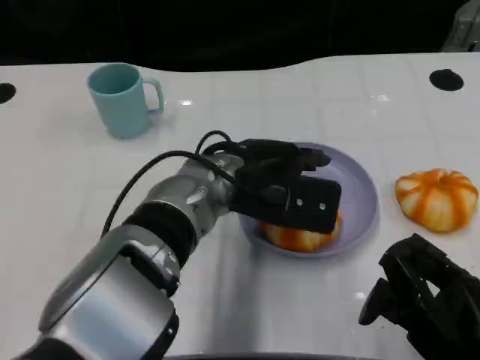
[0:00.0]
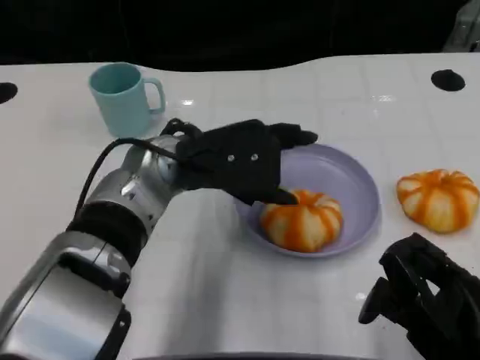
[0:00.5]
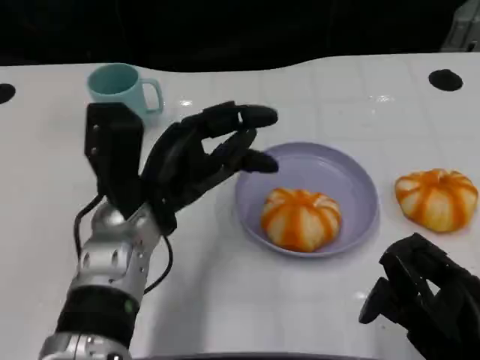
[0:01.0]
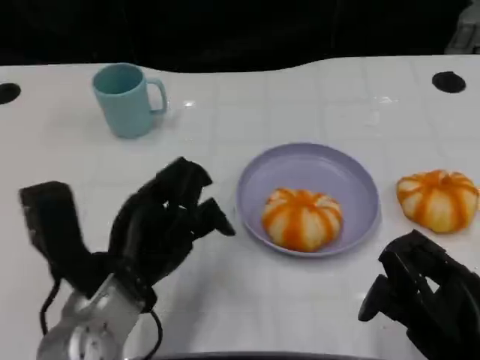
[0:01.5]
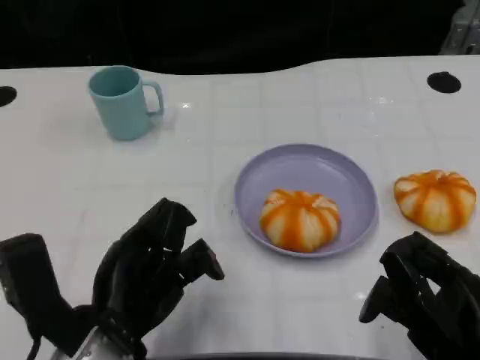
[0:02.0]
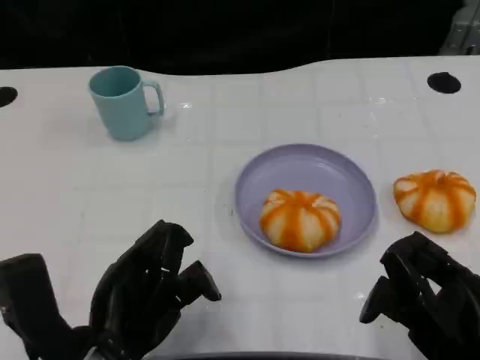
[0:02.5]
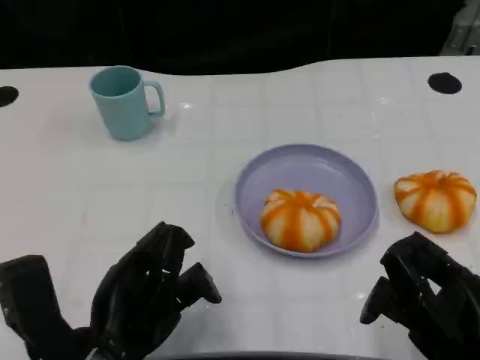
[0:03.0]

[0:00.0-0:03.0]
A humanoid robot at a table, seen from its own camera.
Task of the whole recording: Grasp the bread from the table and place it into the plate.
0:00.0 to 0:01.5: The left hand shifts about 15 cm to the left and backward.
0:01.5 to 0:03.0: The left hand moves backward, approximately 5 cm.

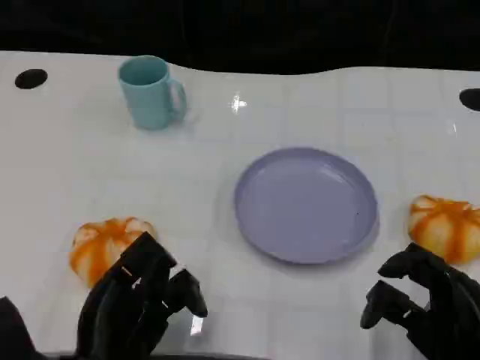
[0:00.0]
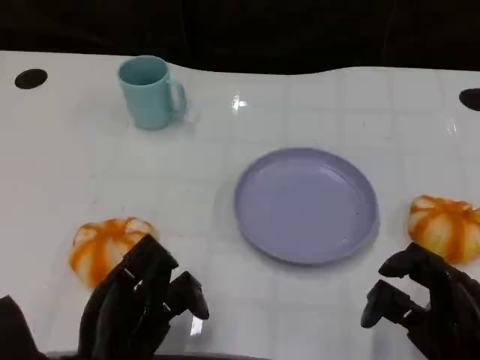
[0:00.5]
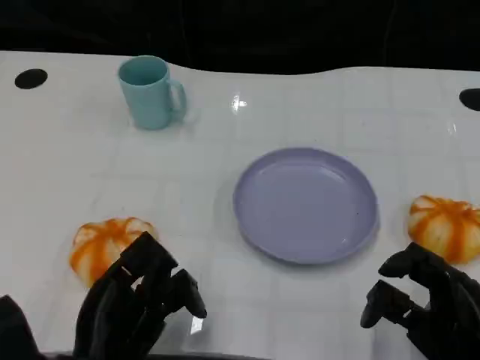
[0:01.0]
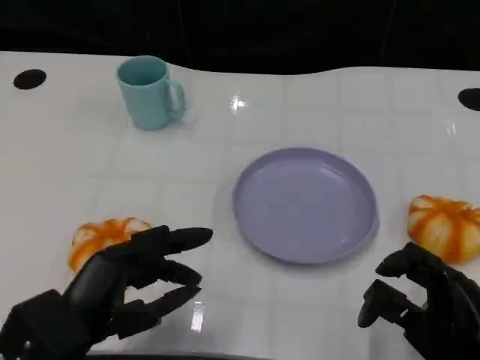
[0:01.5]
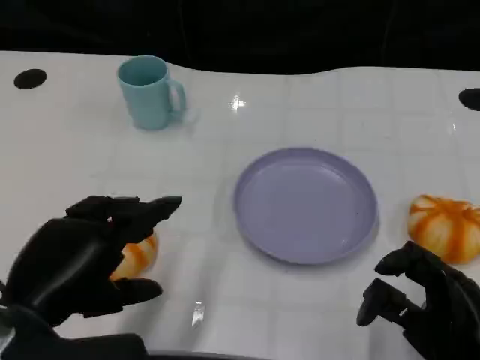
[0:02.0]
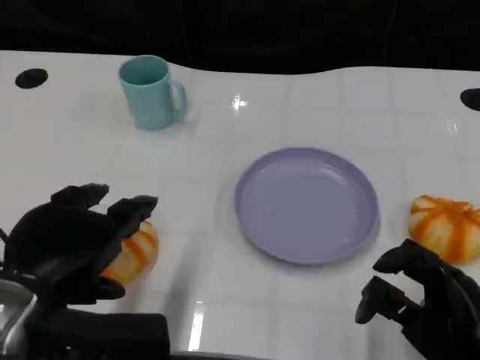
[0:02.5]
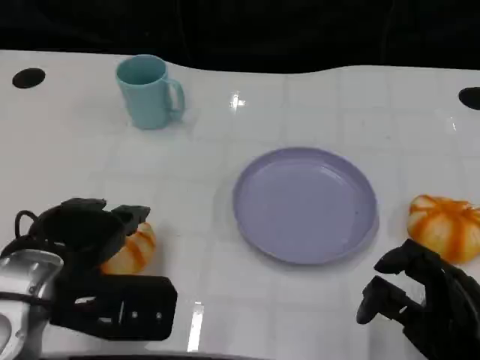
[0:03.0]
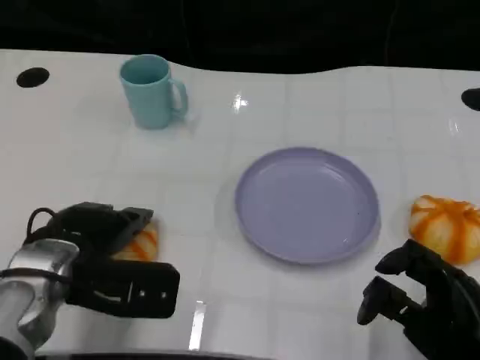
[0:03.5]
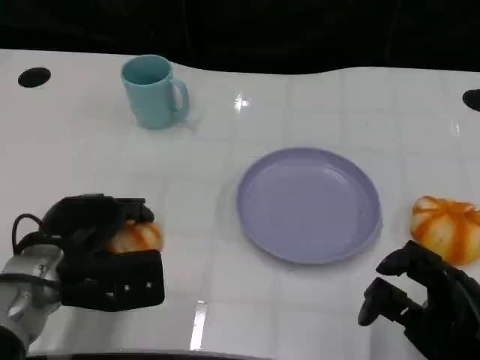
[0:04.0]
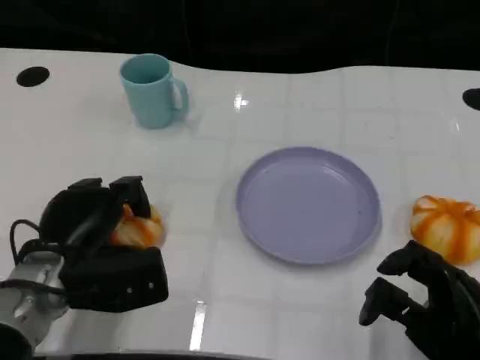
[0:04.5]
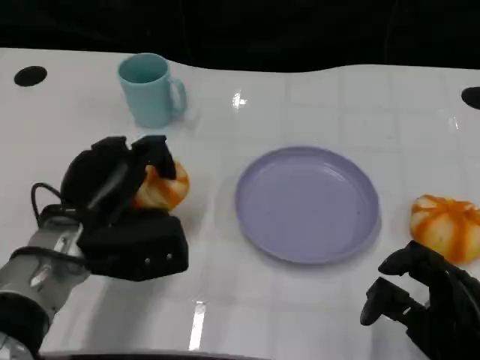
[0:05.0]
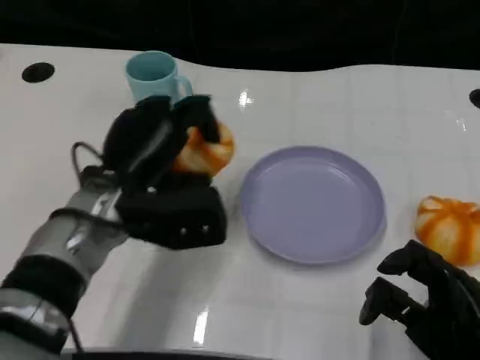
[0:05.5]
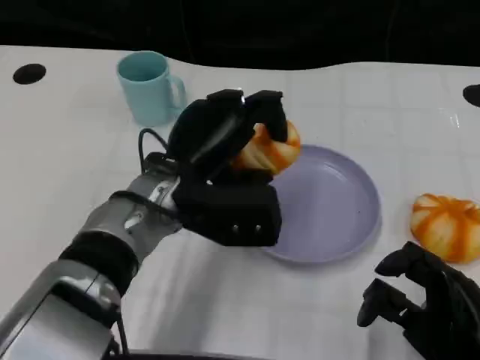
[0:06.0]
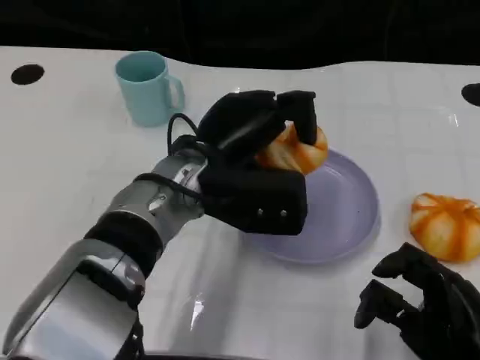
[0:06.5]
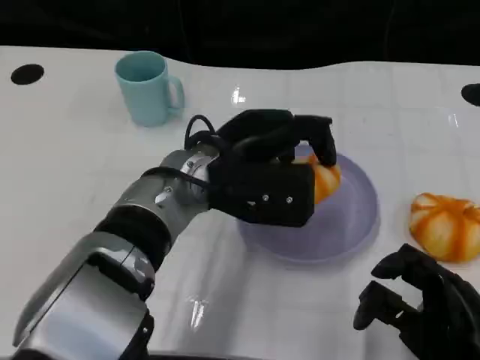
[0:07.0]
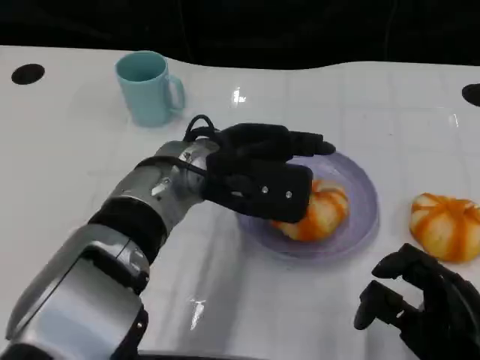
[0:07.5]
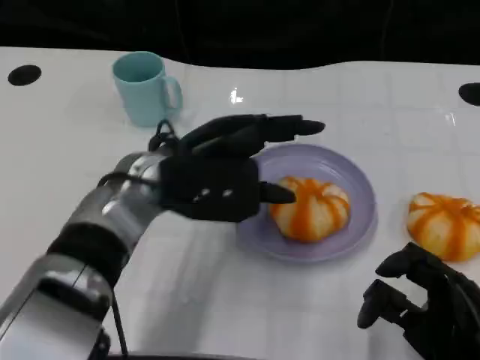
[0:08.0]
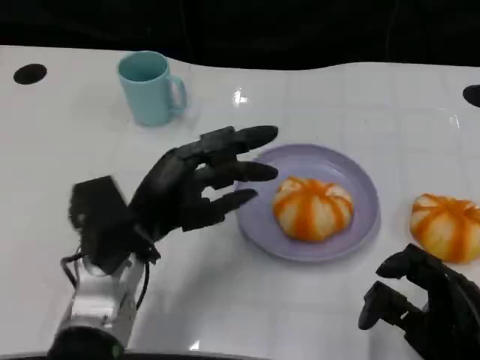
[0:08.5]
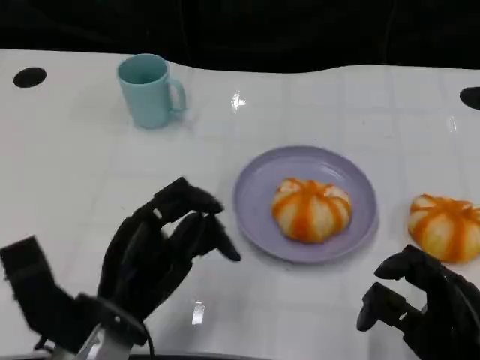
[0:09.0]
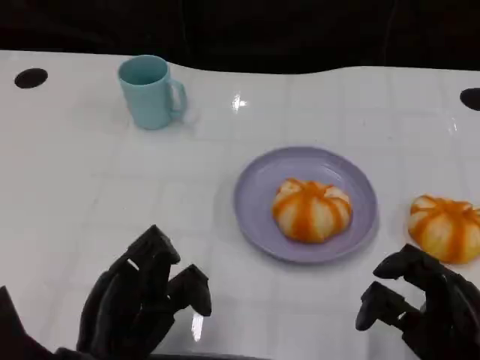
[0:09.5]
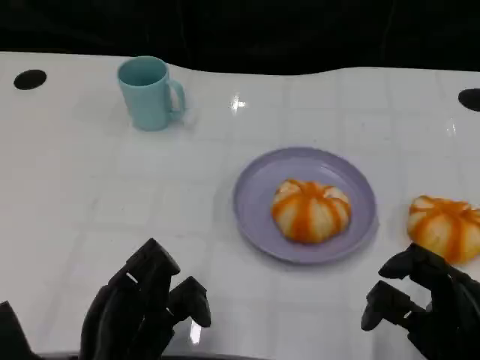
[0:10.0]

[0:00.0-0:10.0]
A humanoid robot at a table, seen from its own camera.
Task of the whole recording: Grasp the bread from the table and place it into the plate.
0:00.0 to 0:02.0: The left hand goes about 10 cm upward.
0:02.0 to 0:04.0: The left hand moves forward and downward, about 15 cm.
0:04.0 to 0:06.0: The left hand goes roughly 15 cm to the right and upward.
0:08.0 to 0:10.0: The left hand goes some 20 cm backward, downward and to the left.

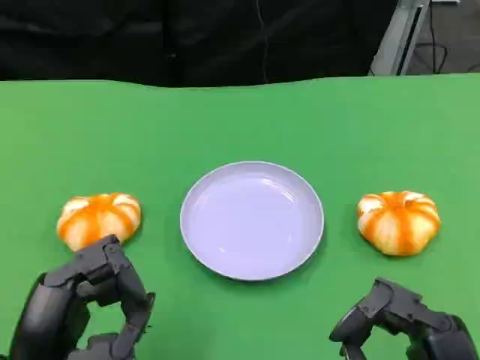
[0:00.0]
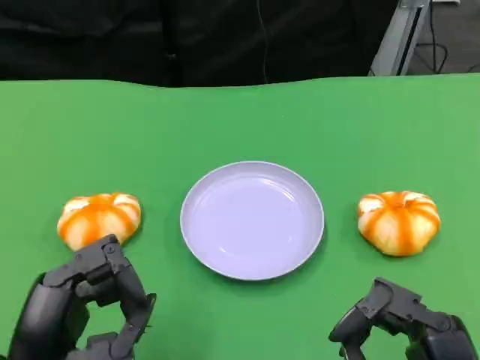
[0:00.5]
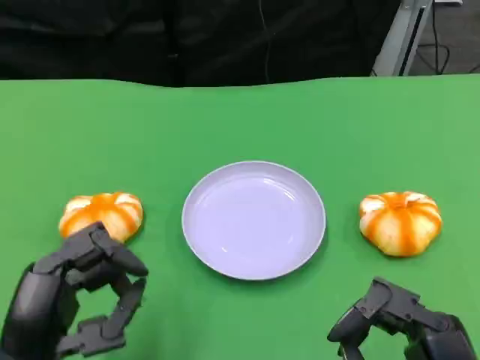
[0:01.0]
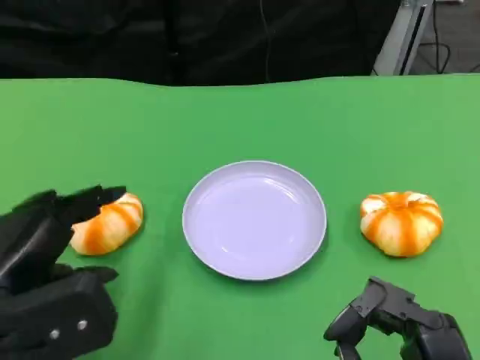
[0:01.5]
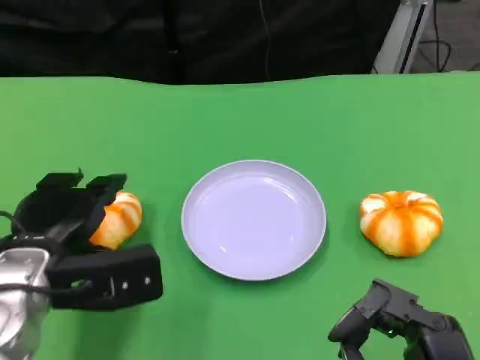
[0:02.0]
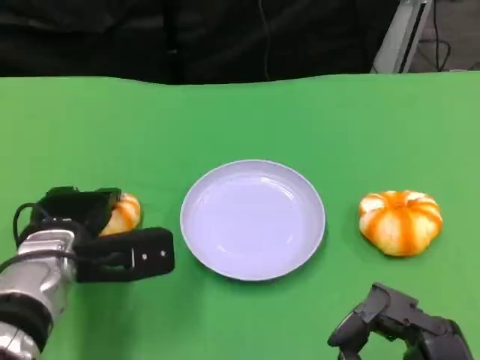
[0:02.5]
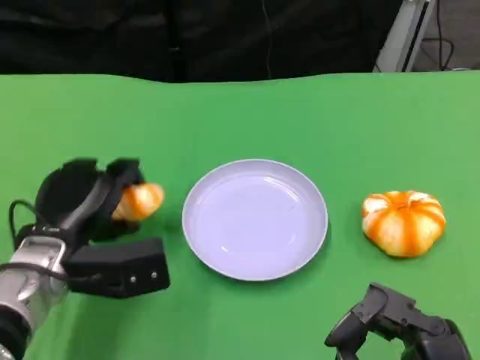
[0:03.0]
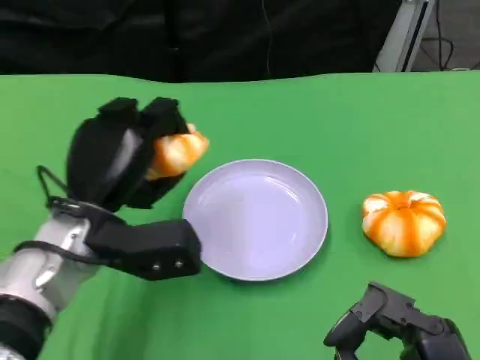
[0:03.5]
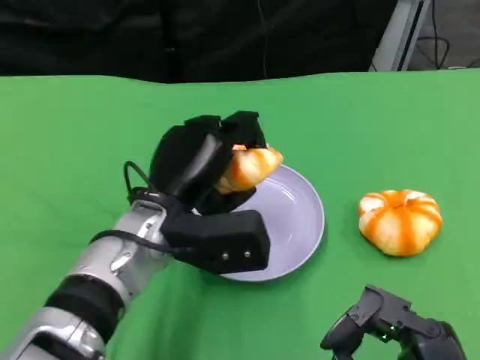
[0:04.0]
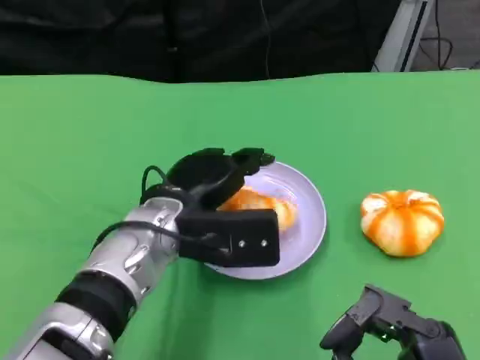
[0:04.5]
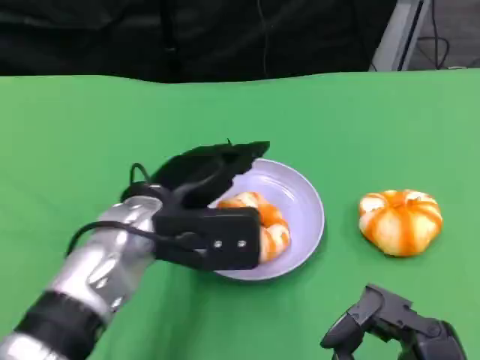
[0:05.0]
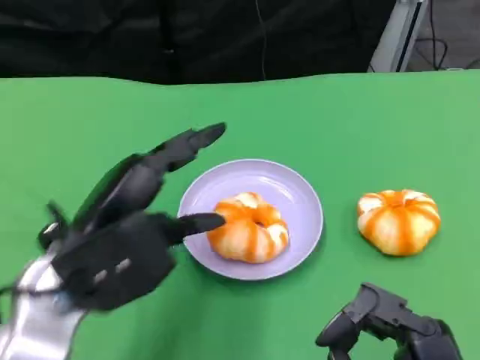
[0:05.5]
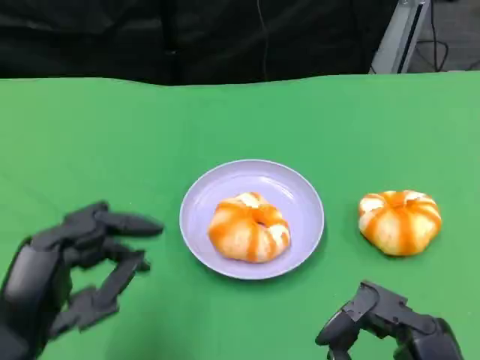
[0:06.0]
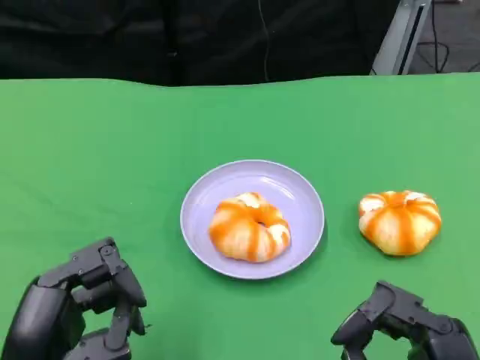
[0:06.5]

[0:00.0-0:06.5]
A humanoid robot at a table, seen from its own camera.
Task of the whole recording: Grasp the bread from the table and place it into the plate.
0:00.0 to 0:02.0: The left hand goes some 15 cm forward.
0:02.0 to 0:04.5: The left hand goes some 10 cm to the right.
0:04.5 to 0:06.5: The left hand shifts about 20 cm backward and to the left.

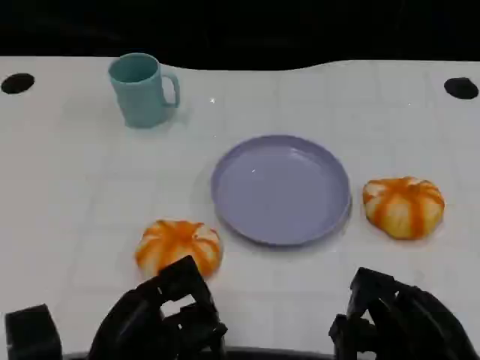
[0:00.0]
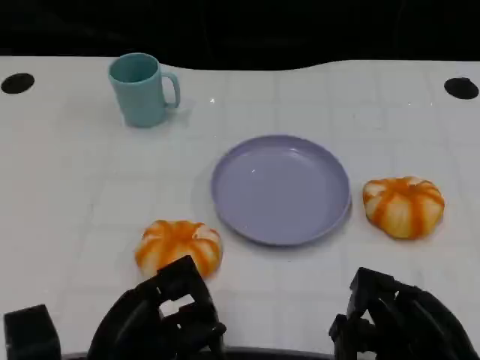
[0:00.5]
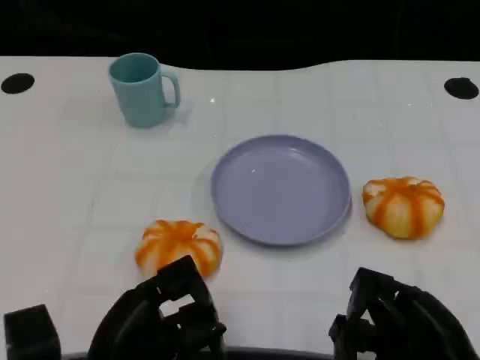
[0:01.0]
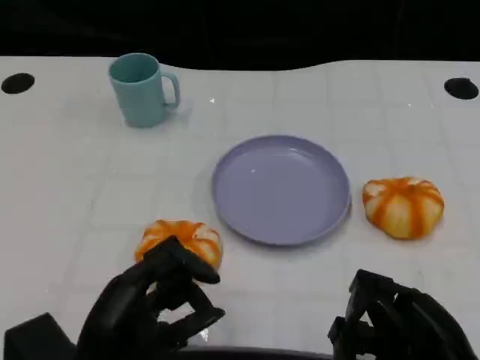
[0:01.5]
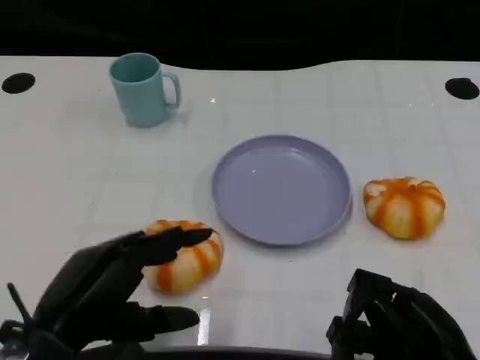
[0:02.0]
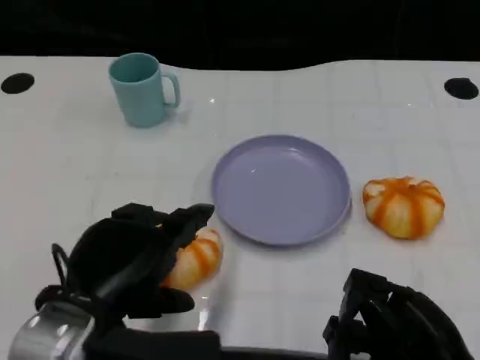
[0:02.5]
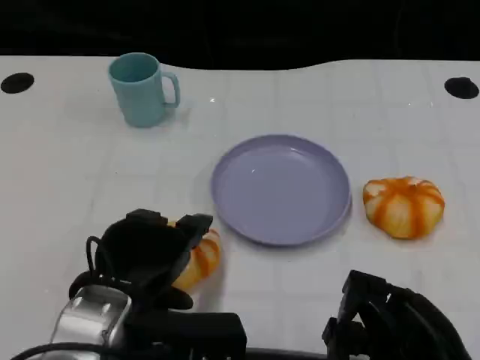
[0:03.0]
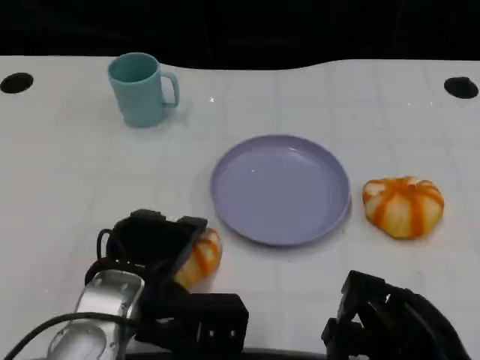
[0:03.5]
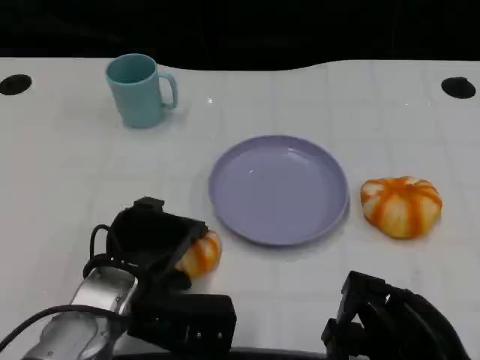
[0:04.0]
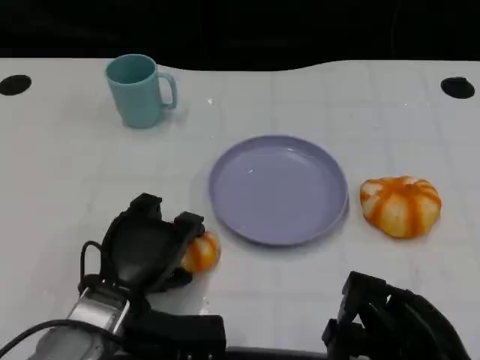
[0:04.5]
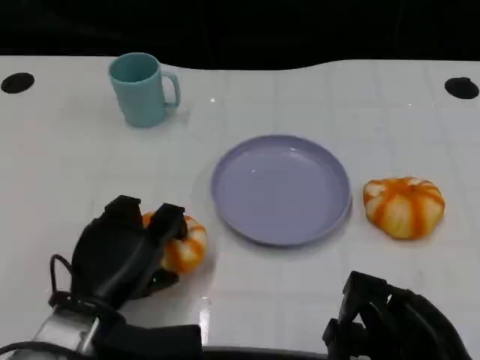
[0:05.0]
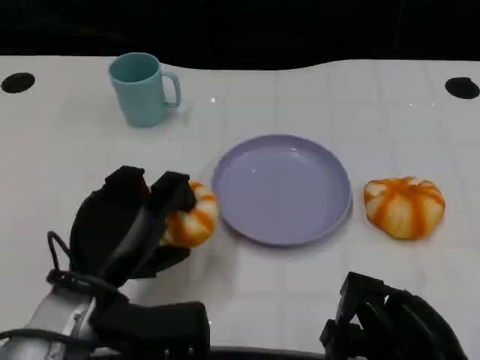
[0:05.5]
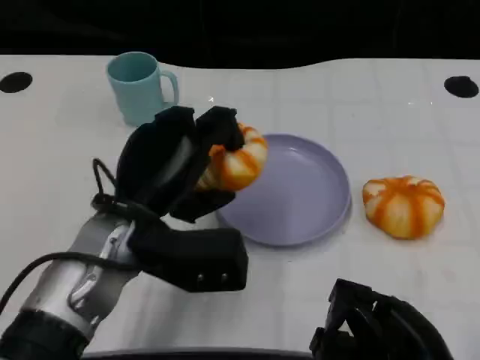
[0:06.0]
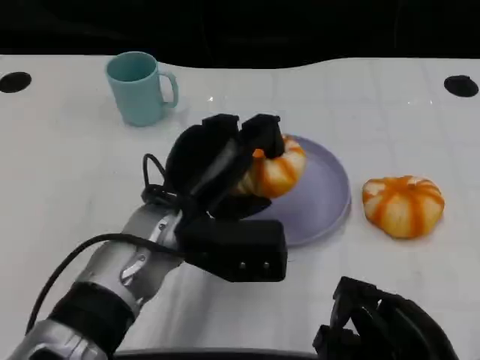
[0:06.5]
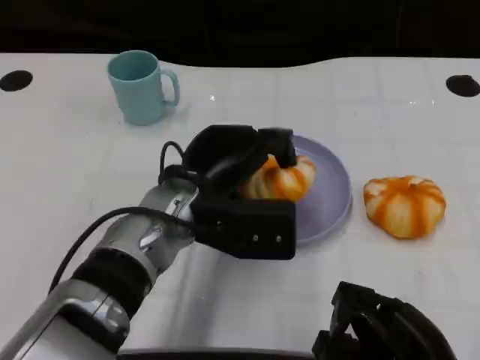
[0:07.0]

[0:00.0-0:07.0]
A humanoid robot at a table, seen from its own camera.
Task of the whole recording: Grasp the bread from the table and place it into the plate.
0:00.0 to 0:02.0: The left hand travels upward by some 10 cm.
0:02.0 to 0:03.5: The left hand is displaced forward and to the right by roughly 10 cm.
0:03.5 to 0:05.0: The left hand moves approximately 5 cm.
0:05.0 to 0:07.0: The left hand moves to the right, forward and upward, about 15 cm.
